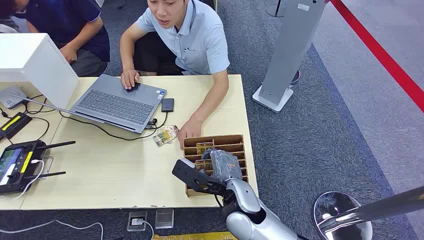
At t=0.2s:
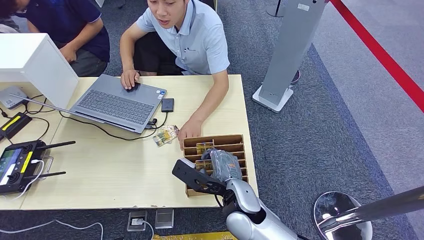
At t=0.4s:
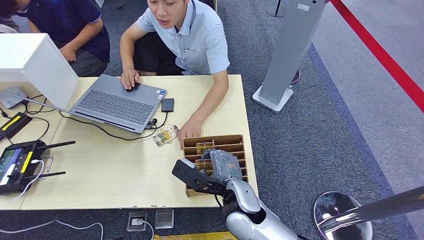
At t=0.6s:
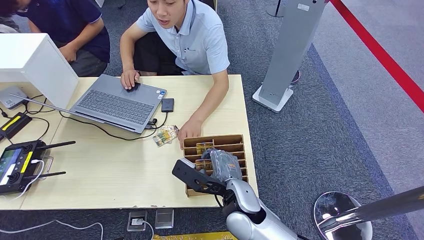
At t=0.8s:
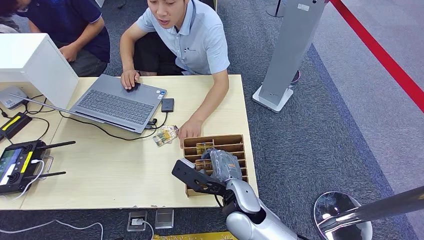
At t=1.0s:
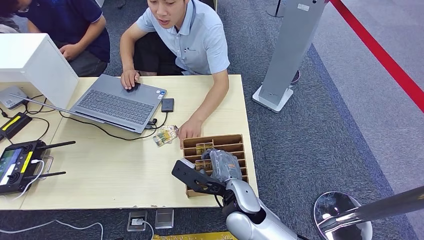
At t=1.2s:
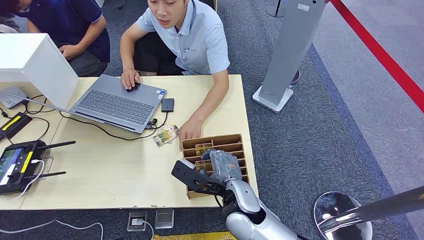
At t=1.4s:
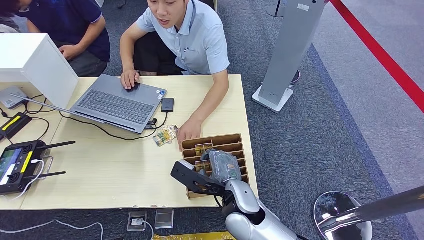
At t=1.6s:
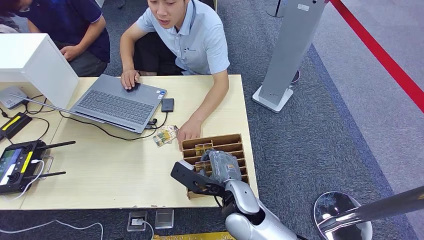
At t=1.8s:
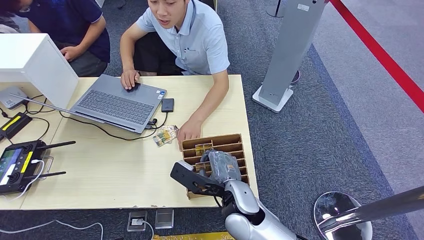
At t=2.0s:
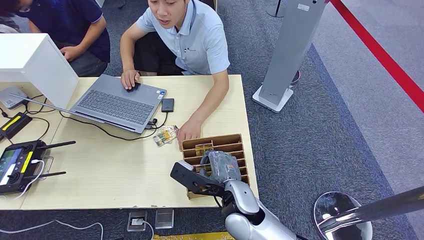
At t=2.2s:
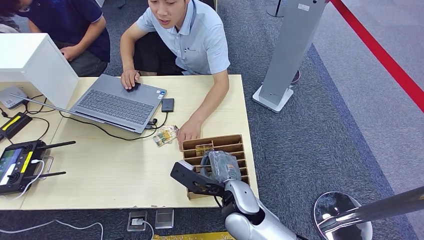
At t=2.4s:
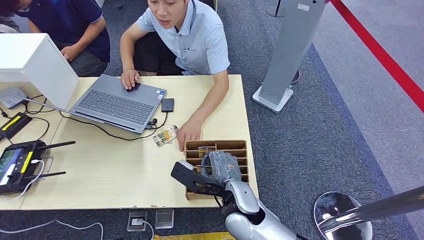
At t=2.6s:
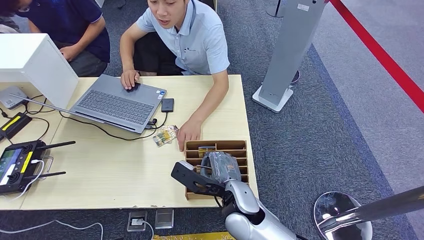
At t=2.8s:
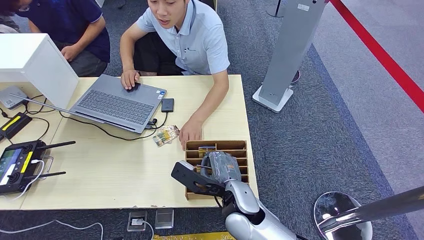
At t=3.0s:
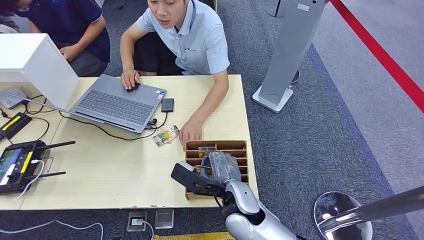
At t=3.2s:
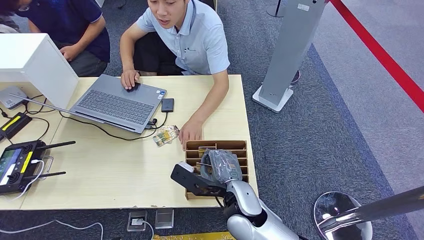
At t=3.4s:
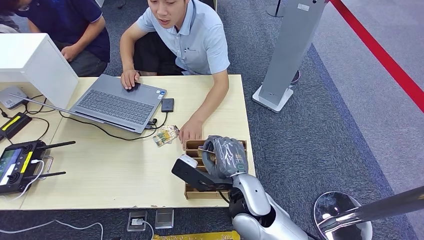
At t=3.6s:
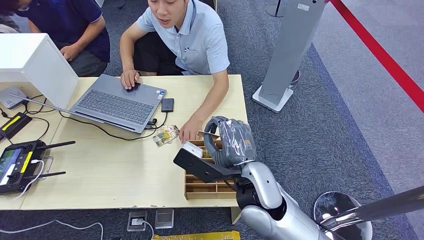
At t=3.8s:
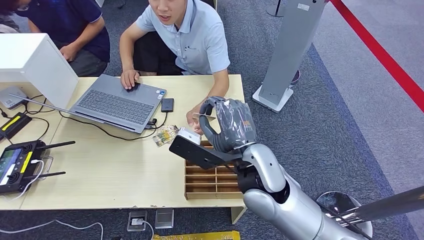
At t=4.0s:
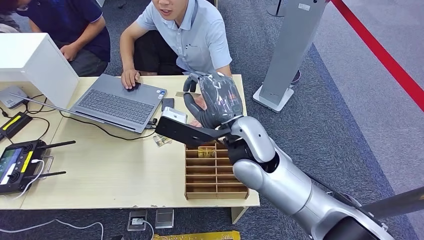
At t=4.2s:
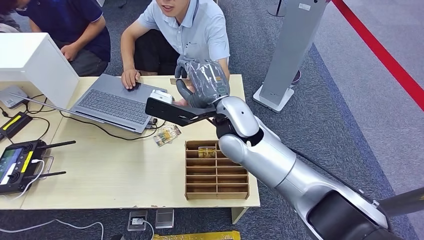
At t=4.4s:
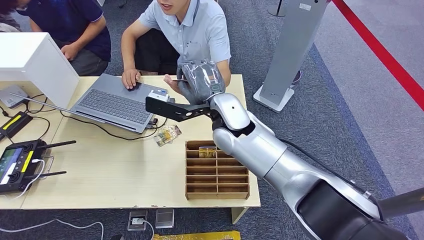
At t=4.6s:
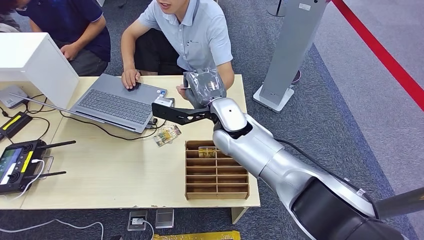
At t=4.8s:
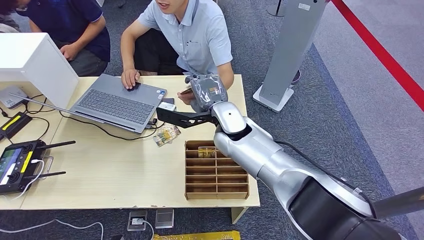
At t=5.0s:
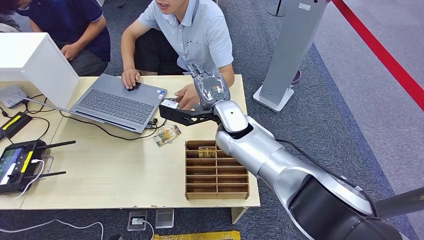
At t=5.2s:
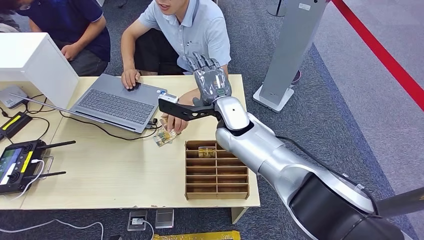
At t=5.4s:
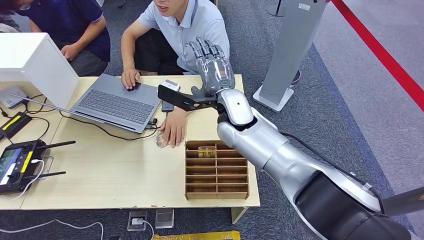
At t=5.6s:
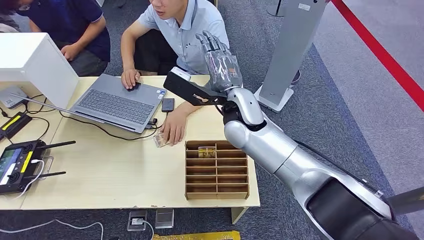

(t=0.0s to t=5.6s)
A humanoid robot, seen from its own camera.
Task of the whole recording: Pick up the card and hand it to the target person.
Step, t=0.0s - t=3.6s: Pick up the key card from the card box.
Step, t=4.0s - t=5.4s: Hand the key card to the target.
t=1.4s - t=2.8s: Both hands stay about where they are.
